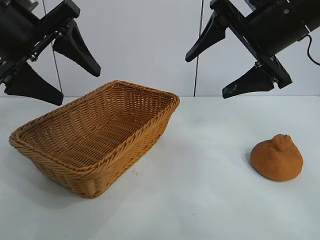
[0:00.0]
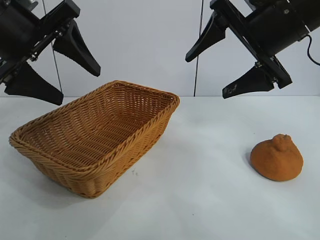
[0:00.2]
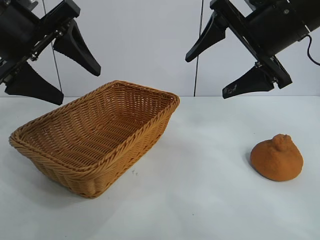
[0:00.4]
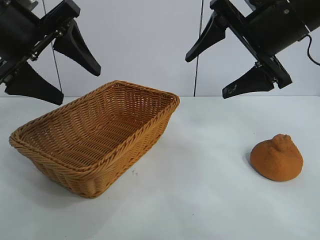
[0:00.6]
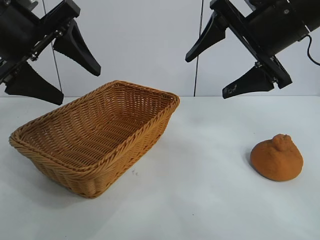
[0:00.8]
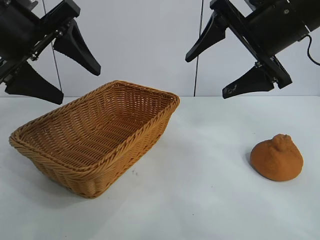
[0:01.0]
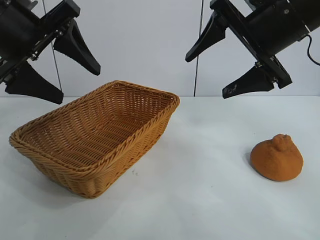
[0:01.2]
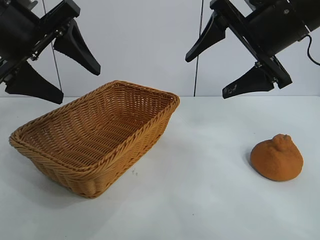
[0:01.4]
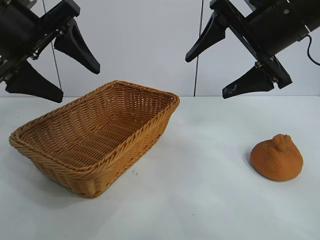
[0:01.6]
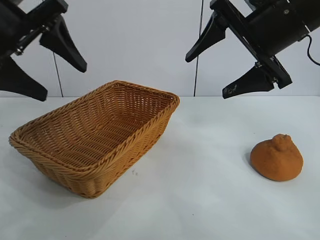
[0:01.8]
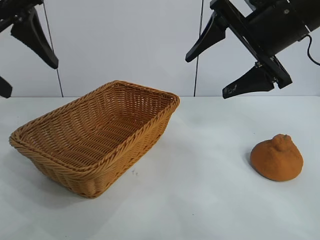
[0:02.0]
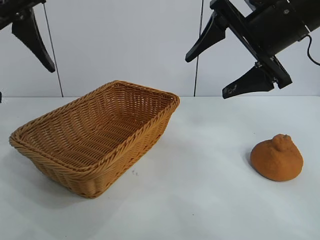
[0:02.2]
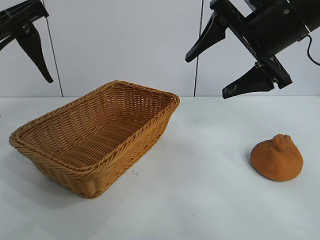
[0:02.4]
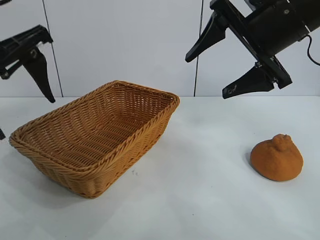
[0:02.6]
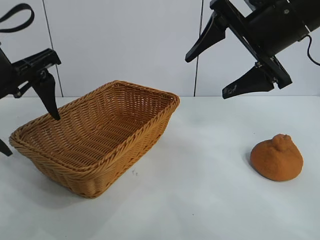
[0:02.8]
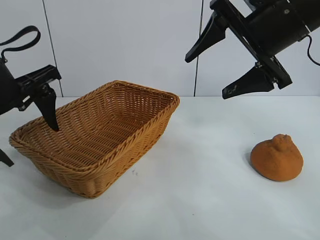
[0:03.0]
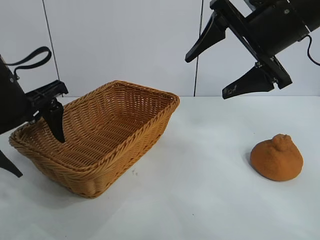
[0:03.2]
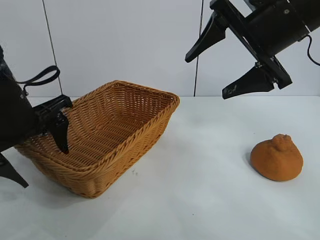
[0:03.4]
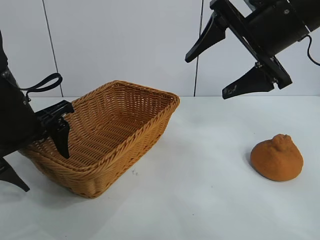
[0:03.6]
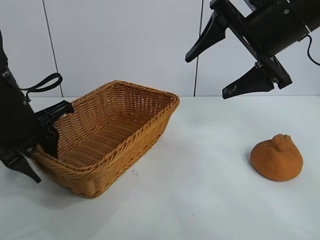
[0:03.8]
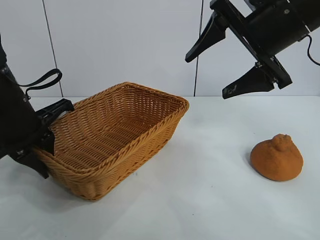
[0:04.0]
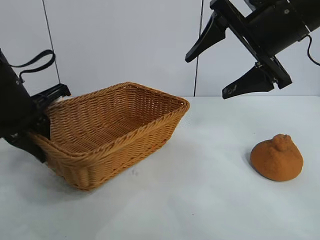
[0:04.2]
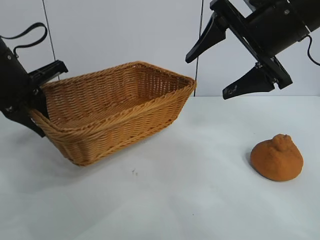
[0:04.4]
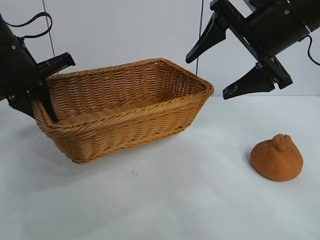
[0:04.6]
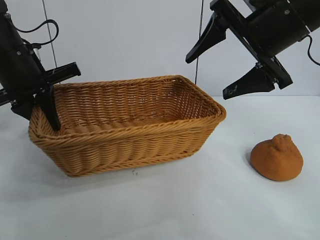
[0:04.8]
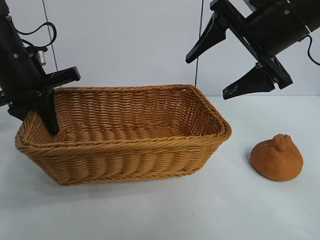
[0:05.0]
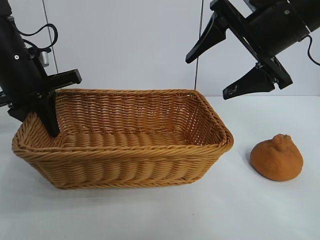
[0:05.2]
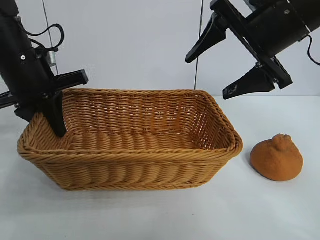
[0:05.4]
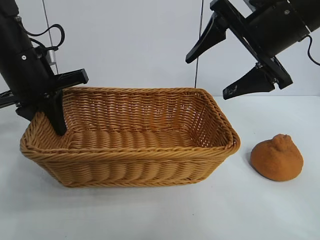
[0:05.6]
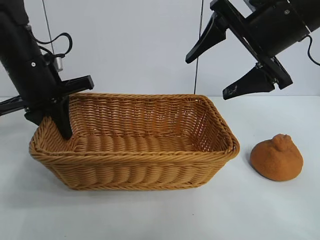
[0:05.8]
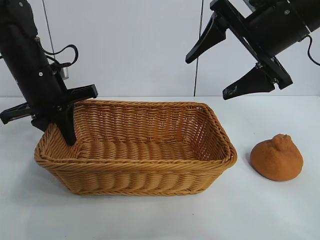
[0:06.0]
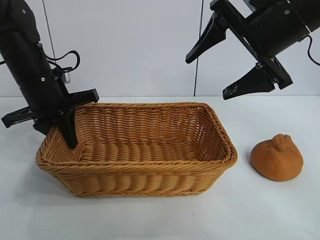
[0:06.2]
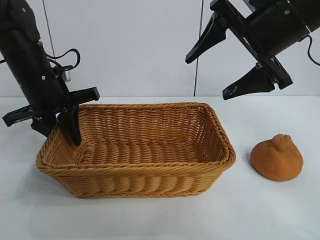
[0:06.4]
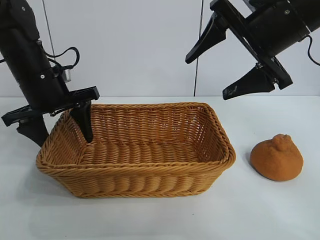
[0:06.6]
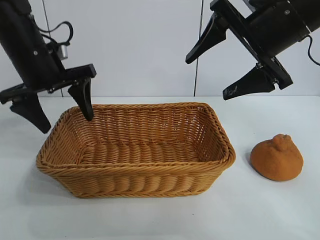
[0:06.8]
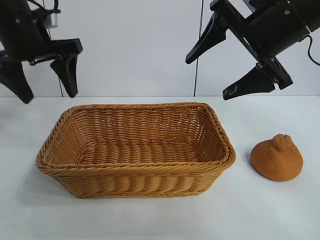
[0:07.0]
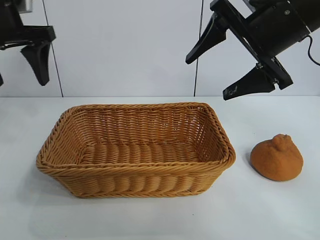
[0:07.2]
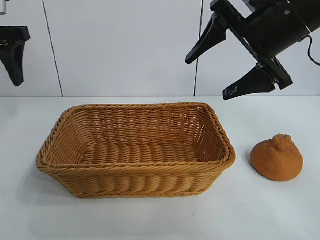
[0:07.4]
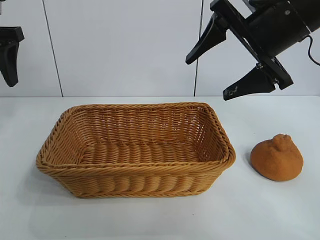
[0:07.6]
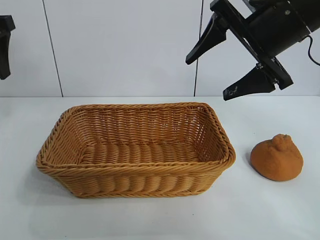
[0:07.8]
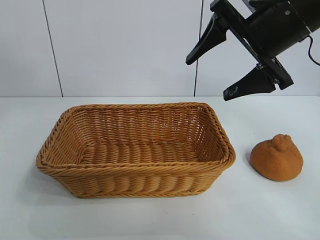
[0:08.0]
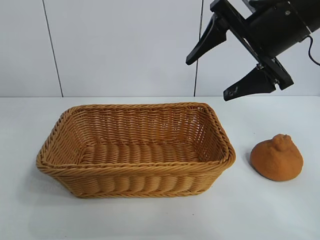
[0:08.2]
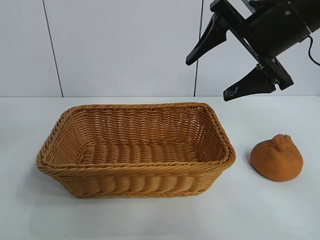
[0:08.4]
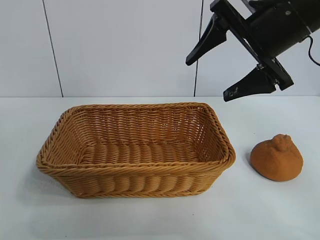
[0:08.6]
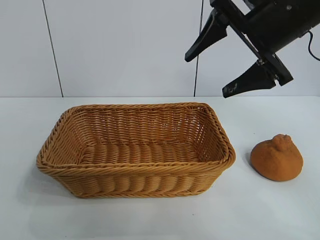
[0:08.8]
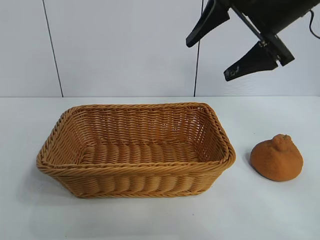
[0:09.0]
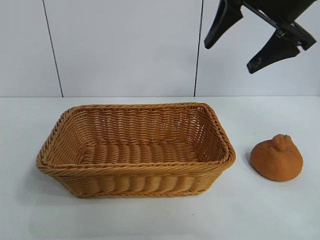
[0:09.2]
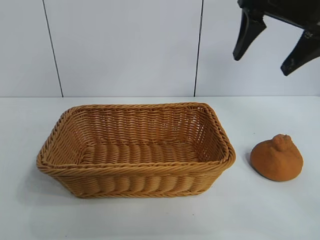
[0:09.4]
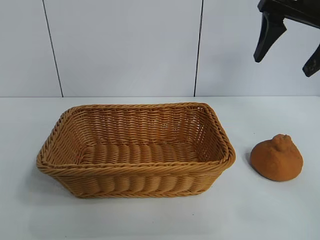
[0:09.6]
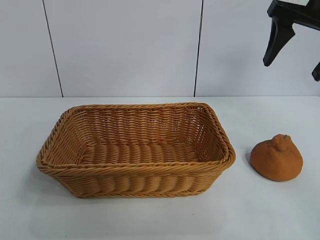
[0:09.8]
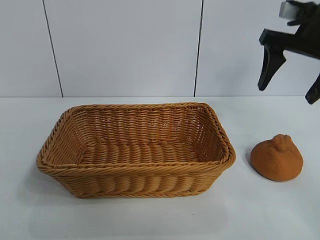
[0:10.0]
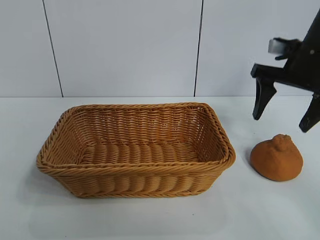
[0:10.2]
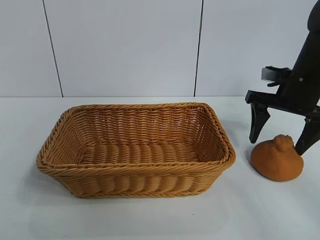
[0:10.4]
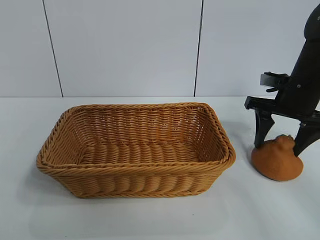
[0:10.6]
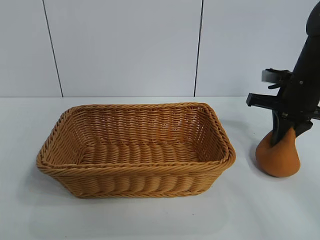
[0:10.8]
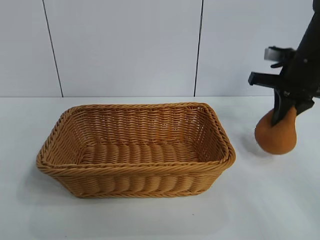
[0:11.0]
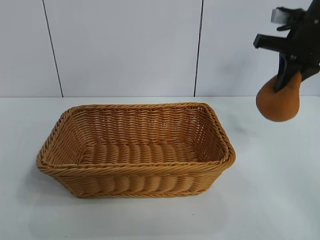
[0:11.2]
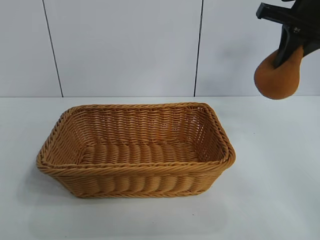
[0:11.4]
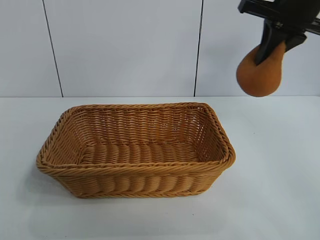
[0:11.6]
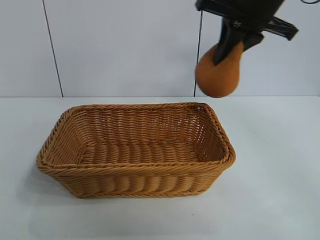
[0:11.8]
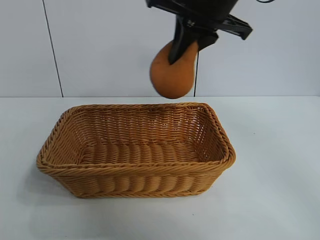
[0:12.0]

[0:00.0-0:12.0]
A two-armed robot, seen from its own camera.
Task of the whole recording: pick up the orange and put it into the basket.
Step, 0:01.0 to 0:03.8: Grasp the basket with left gripper.
Step, 0:04.0 to 0:06.6: Place the basket in the center of view with left gripper.
Step, 0:06.8 to 0:10.8: Grasp the orange with right gripper.
